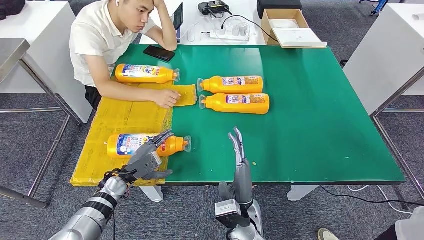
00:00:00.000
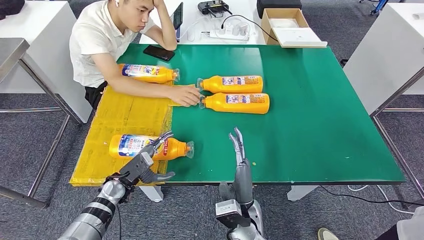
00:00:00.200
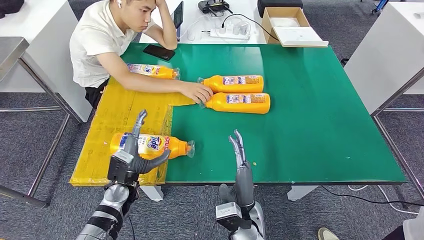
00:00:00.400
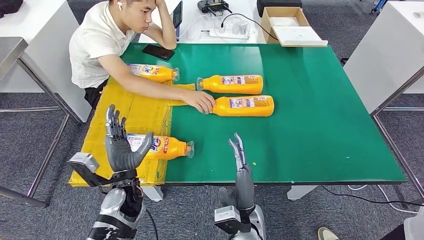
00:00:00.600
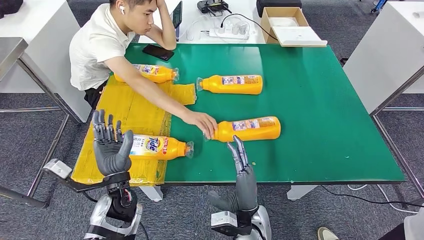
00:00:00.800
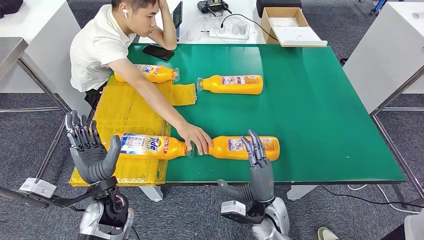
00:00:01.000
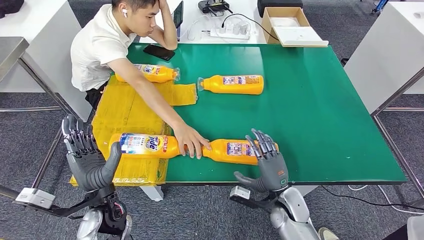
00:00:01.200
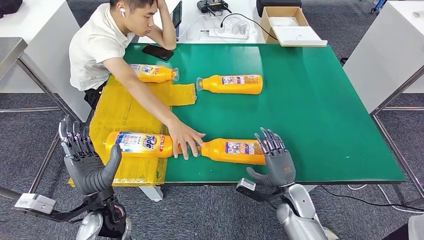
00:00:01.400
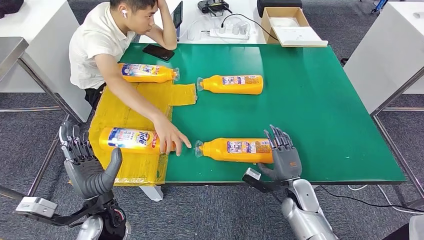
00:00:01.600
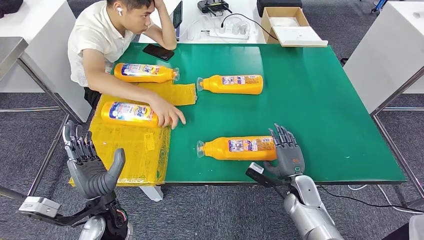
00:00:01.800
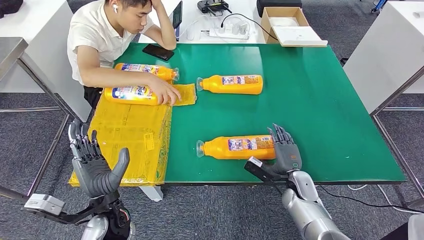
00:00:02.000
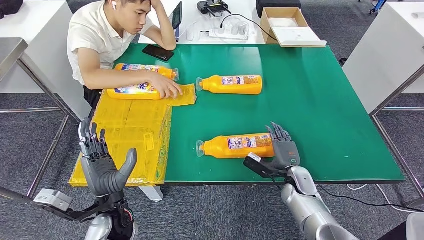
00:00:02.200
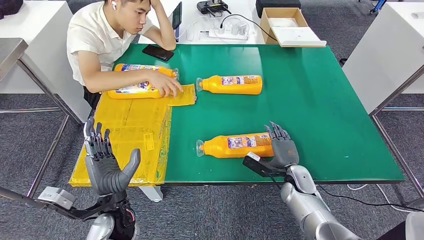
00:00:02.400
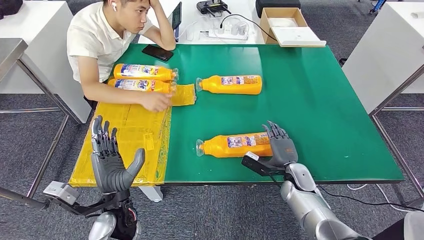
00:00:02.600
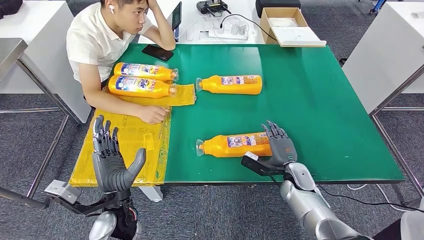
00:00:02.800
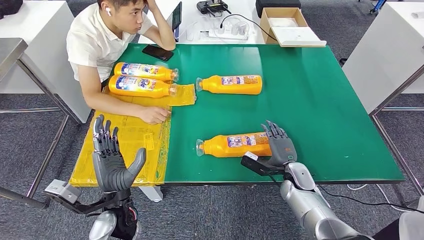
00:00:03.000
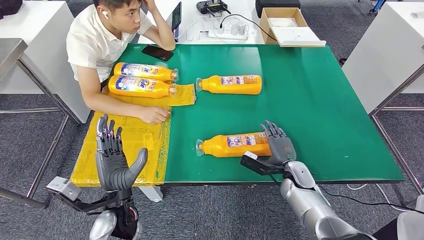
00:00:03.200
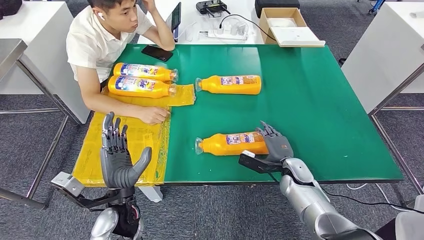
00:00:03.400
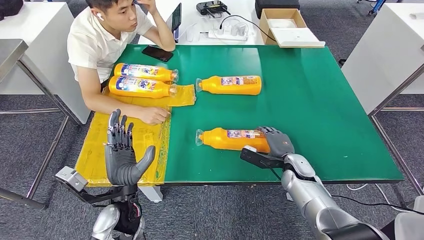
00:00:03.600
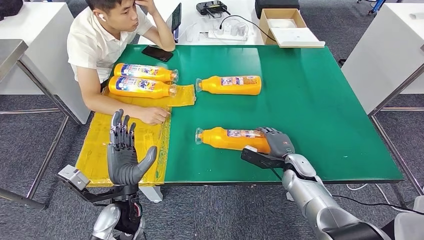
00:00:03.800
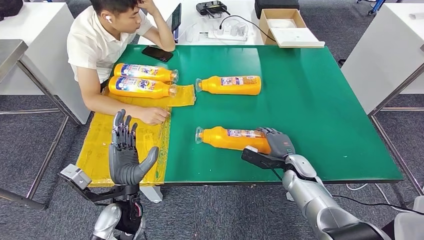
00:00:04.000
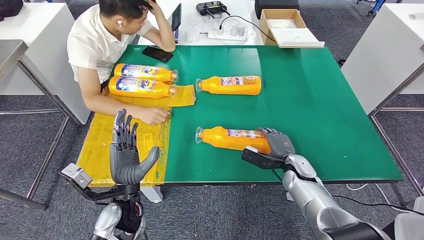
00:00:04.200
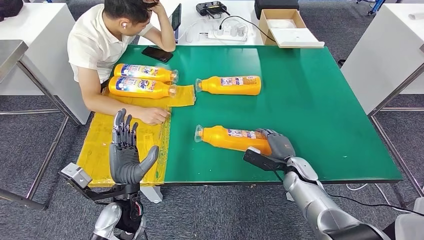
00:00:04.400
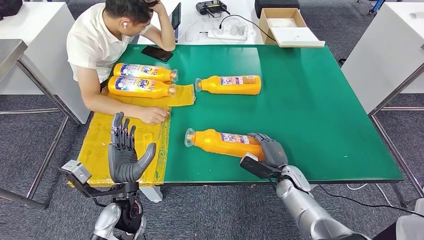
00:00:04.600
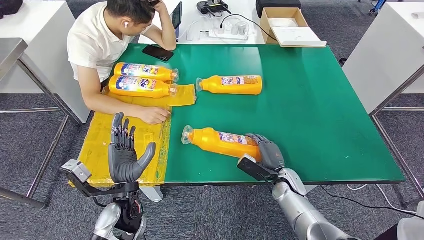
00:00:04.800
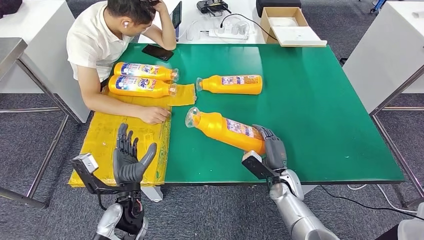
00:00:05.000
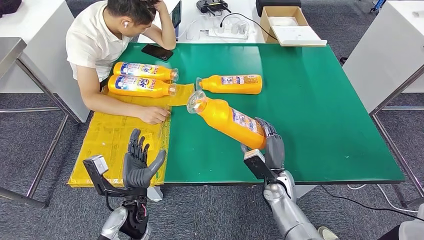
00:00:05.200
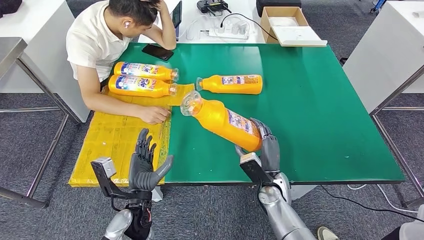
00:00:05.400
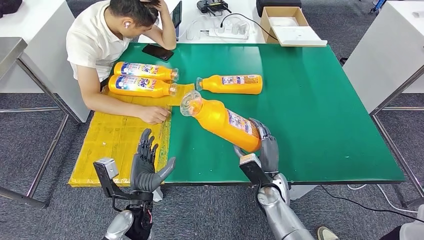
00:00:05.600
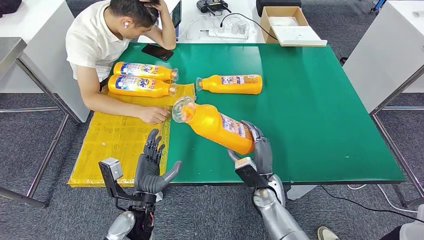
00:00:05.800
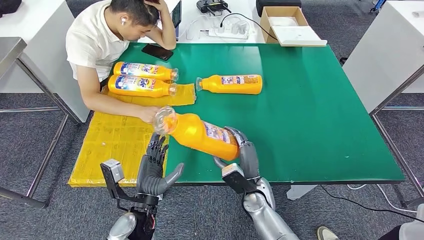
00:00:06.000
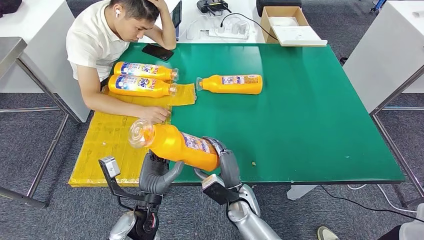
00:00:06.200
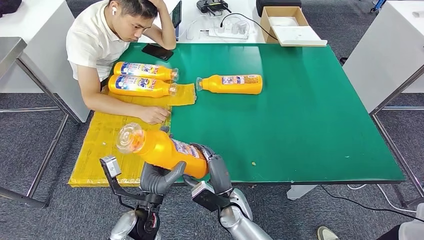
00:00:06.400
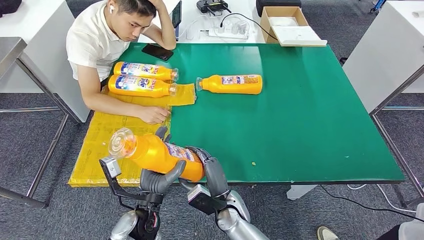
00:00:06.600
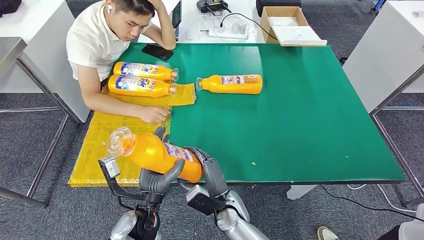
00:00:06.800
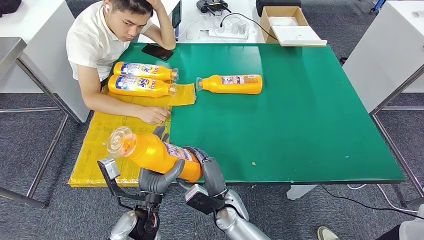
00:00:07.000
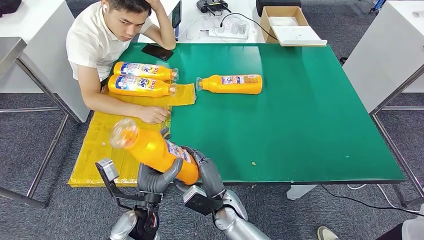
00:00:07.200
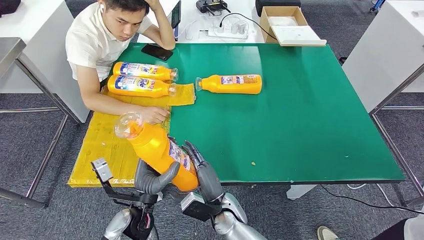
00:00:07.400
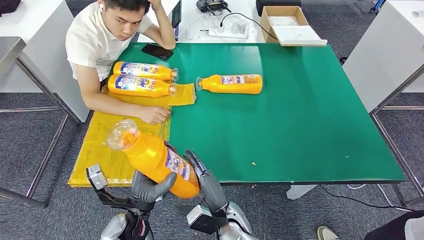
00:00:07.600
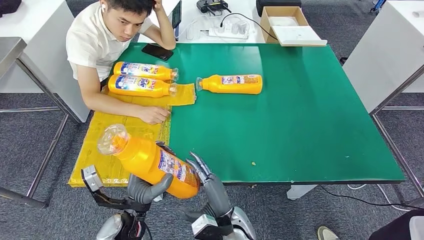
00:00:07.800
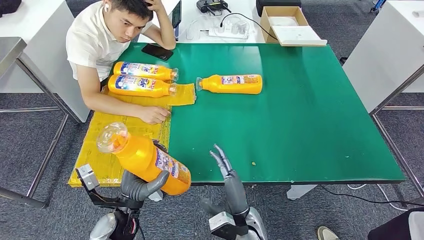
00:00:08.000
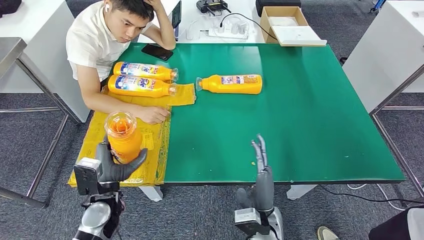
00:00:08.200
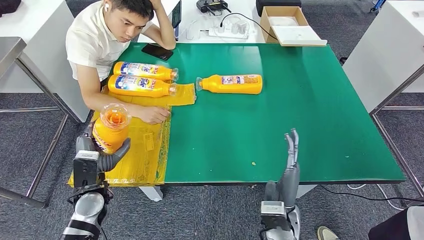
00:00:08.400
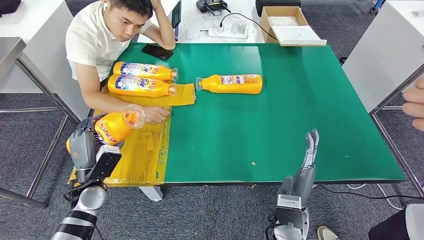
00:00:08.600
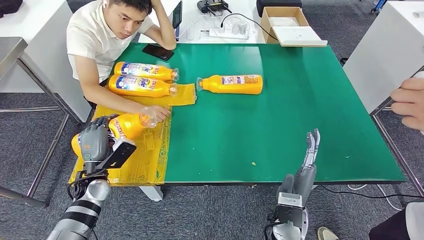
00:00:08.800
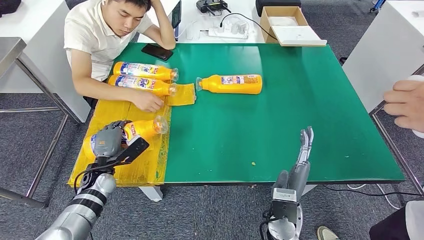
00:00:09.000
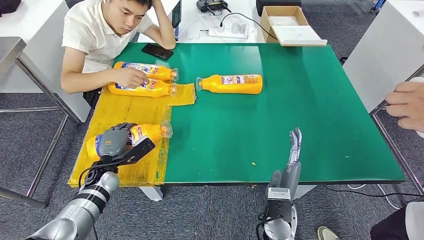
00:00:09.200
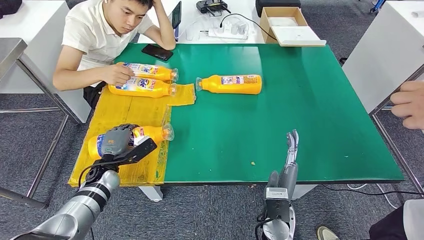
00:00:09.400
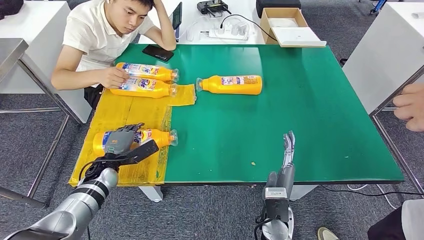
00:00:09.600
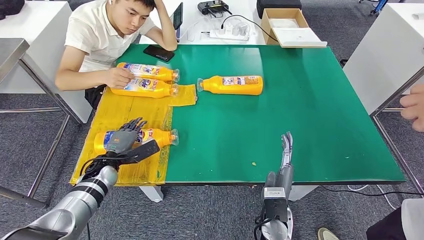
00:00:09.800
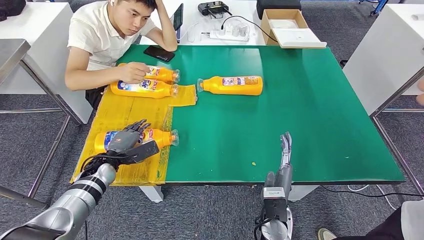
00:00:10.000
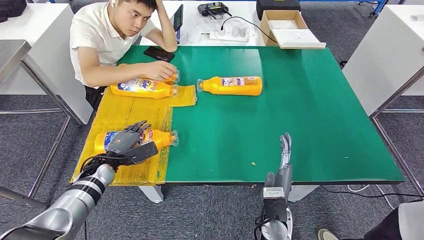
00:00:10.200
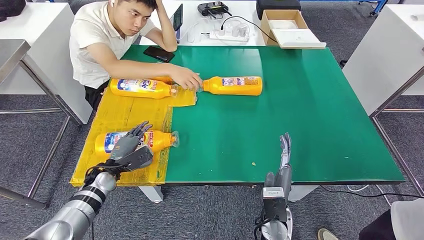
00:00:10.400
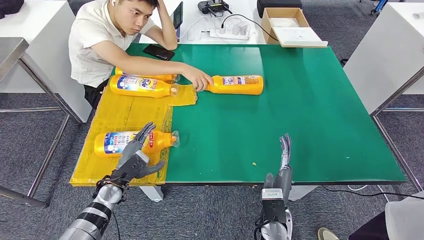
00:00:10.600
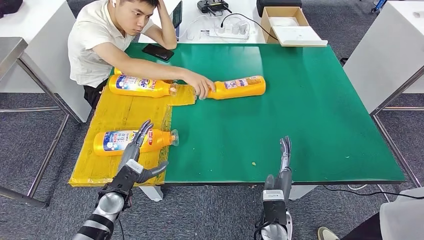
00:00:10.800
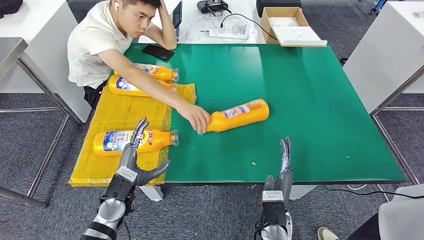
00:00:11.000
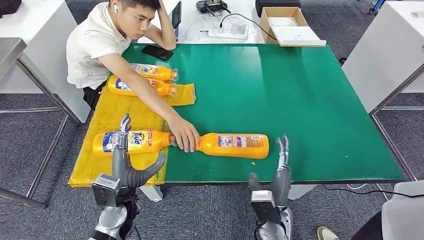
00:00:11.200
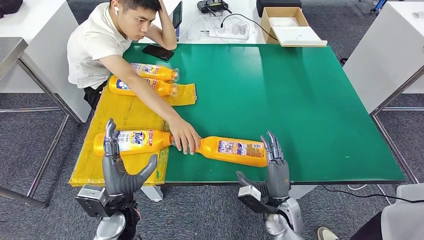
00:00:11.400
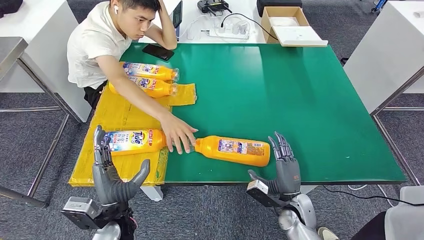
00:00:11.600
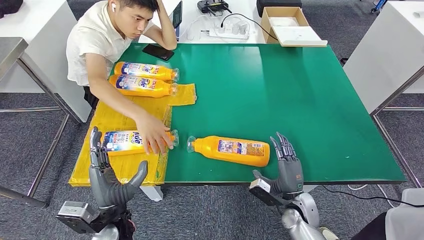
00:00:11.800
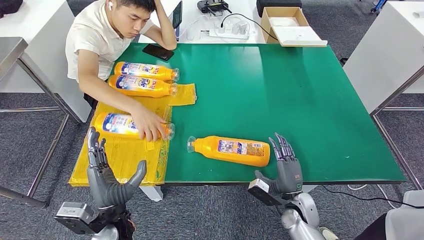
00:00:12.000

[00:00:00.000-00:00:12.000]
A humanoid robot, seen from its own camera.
Step, 00:00:00.800 to 00:00:06.800: Pick up the bottle from the table.
Step, 00:00:07.000 to 00:00:11.200: Flip the bottle to face forward.
00:00:03.000 to 00:00:04.400: There are only small adjustments of the hands.
00:00:06.000 to 00:00:07.600: The right hand goes approximately 10 cm to the left and backward.

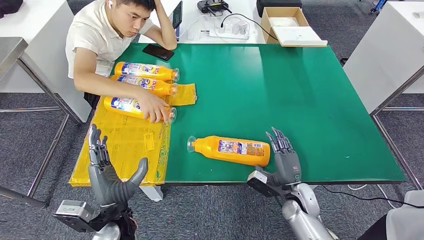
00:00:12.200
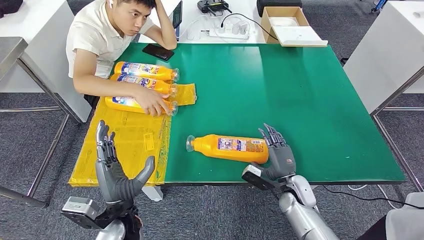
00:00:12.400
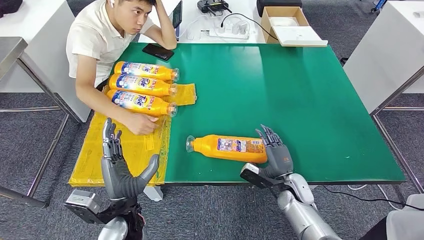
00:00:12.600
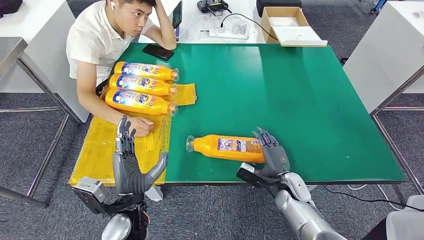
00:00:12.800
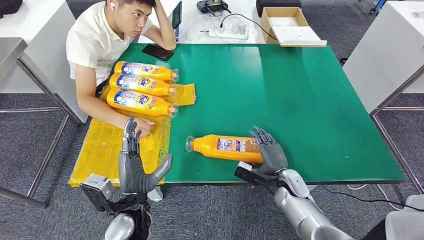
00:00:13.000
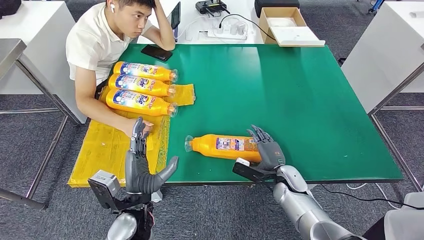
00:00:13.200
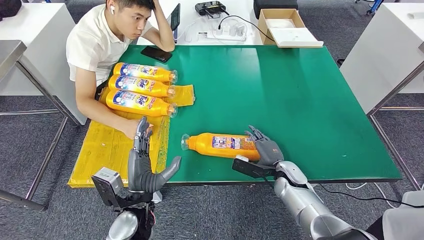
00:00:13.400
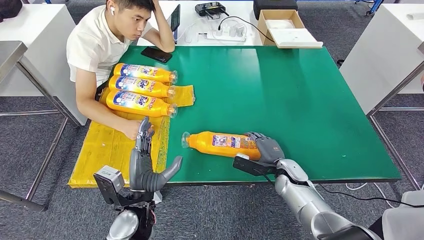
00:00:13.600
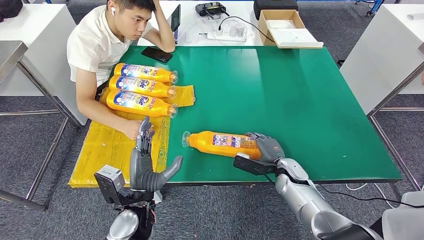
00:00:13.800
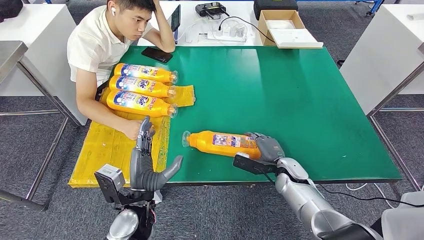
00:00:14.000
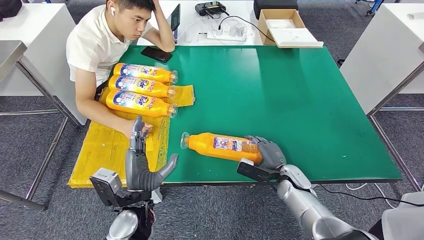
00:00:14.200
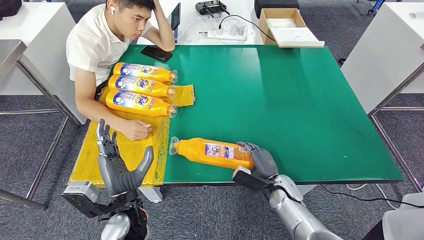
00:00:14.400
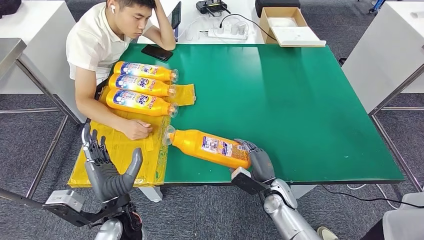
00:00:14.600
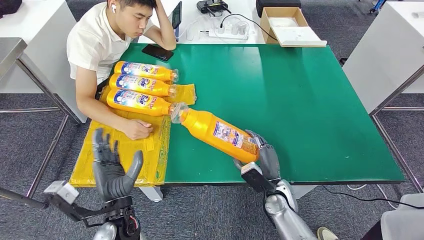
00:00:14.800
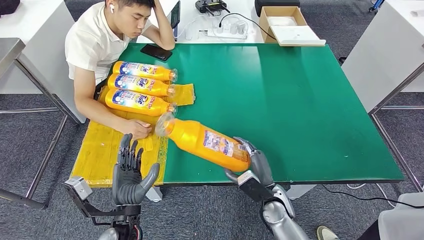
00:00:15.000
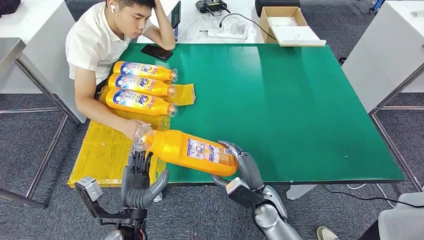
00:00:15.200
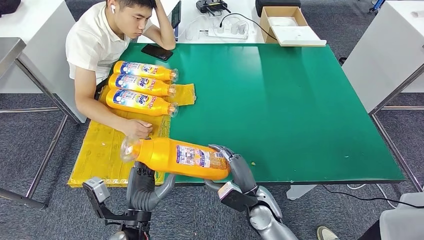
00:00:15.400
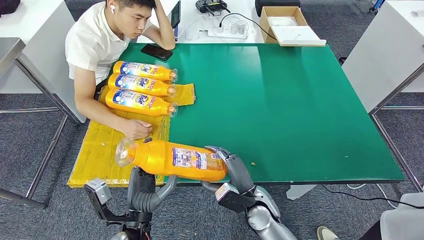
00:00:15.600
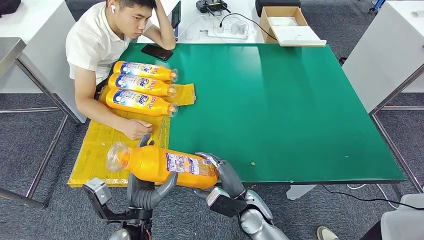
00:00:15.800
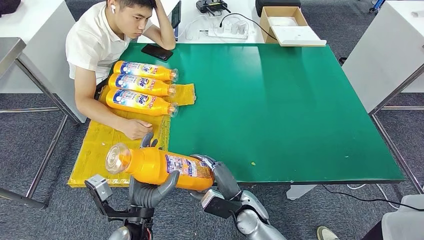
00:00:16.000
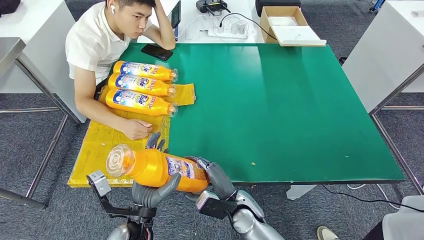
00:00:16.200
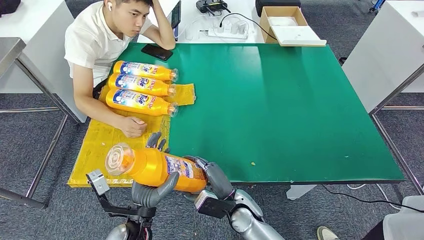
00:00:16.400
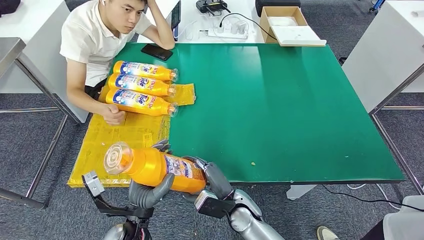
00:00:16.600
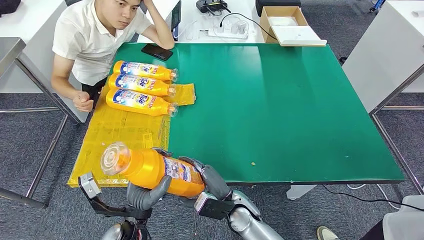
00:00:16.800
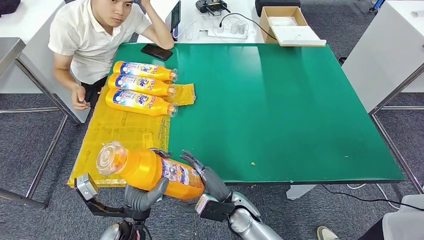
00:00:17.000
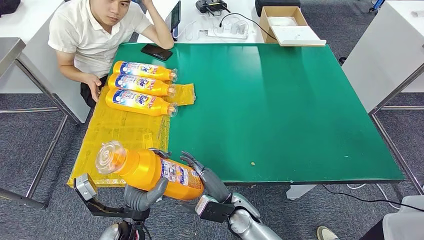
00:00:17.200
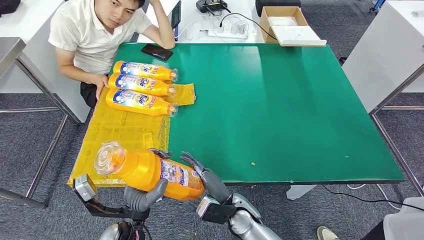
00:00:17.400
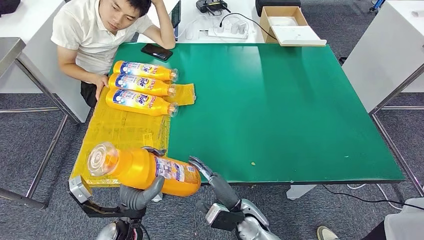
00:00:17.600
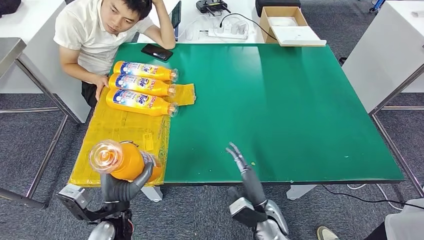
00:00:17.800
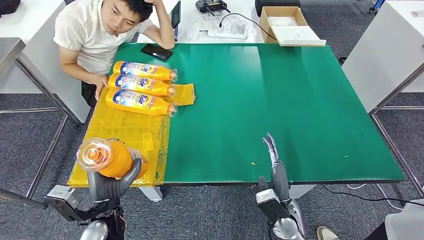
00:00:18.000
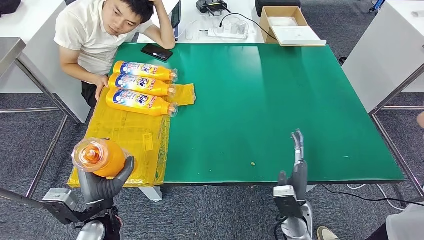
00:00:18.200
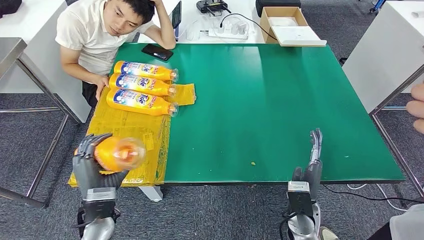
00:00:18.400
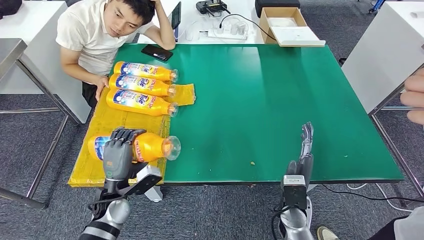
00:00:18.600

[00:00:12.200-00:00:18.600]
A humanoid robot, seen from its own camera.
Step, 00:00:12.200 to 00:00:17.000: Pick up the bottle from the table.
00:00:15.400 to 00:00:17.000: The right hand is displaced to the left by approximately 5 cm.
00:00:17.000 to 00:00:18.600: The right hand moves to the right, approximately 15 cm. Meanwhile the left hand moves forward and to the left, roughly 10 cm.
